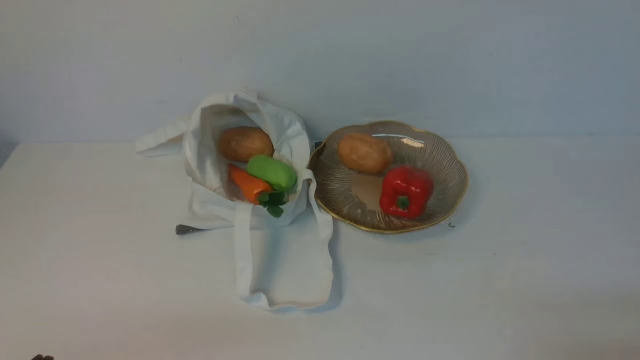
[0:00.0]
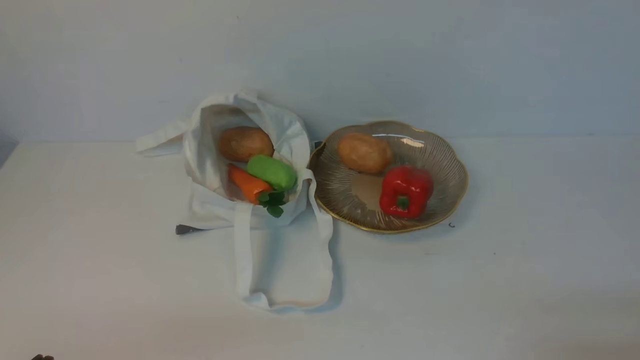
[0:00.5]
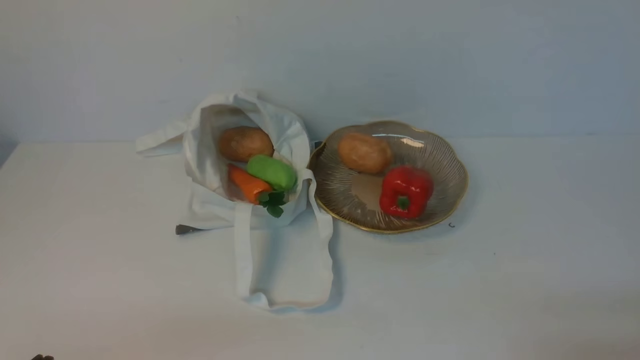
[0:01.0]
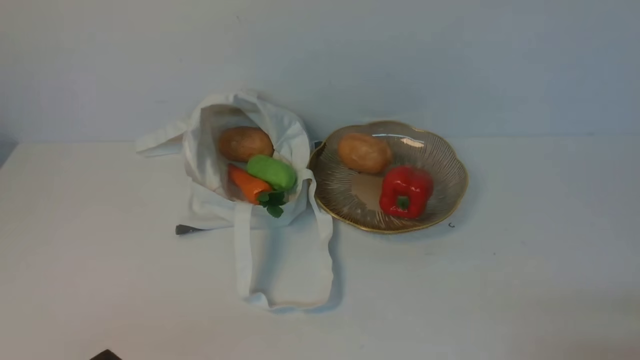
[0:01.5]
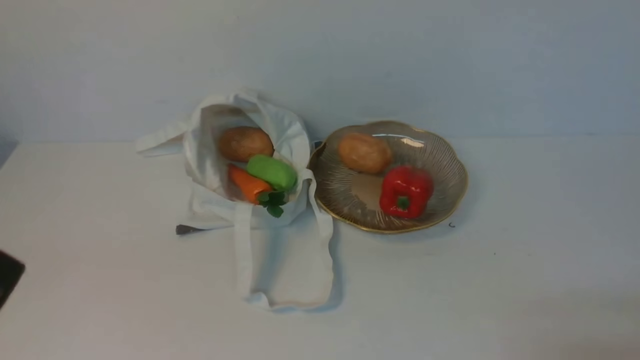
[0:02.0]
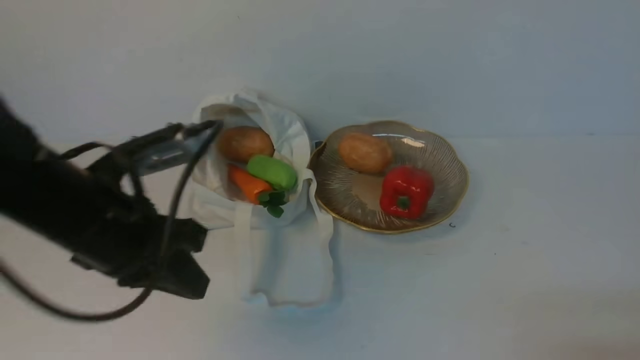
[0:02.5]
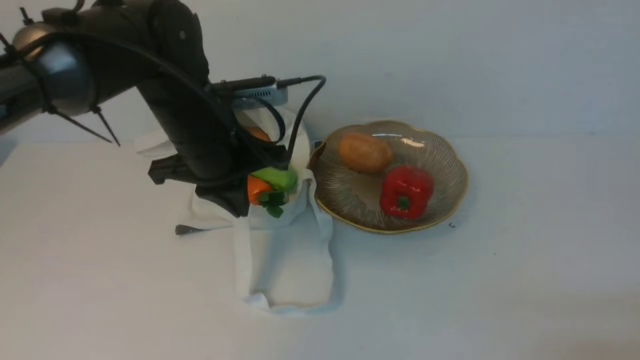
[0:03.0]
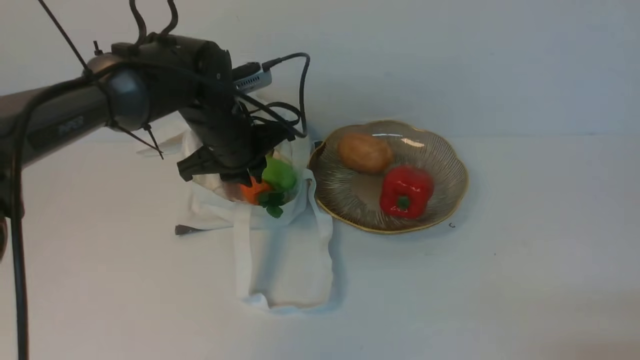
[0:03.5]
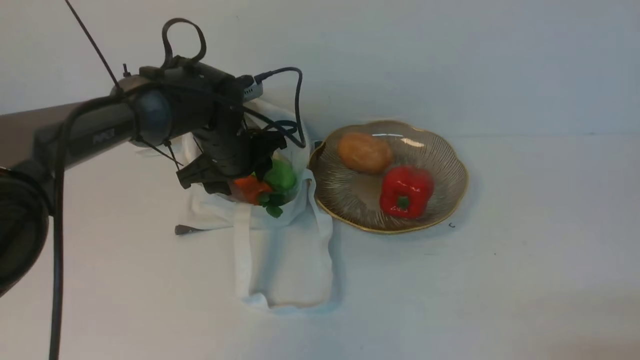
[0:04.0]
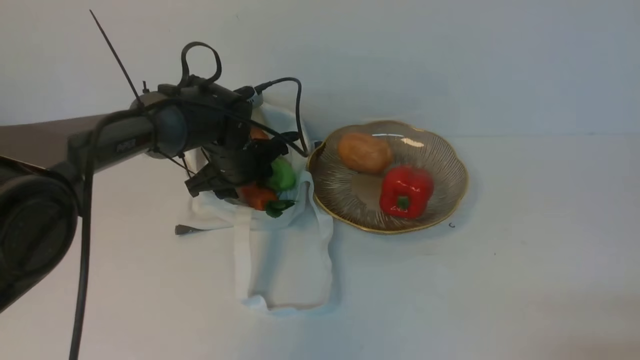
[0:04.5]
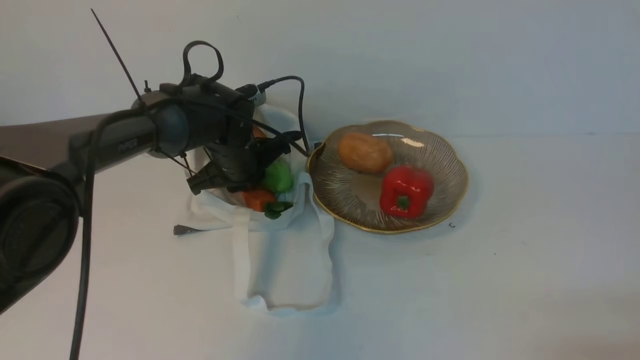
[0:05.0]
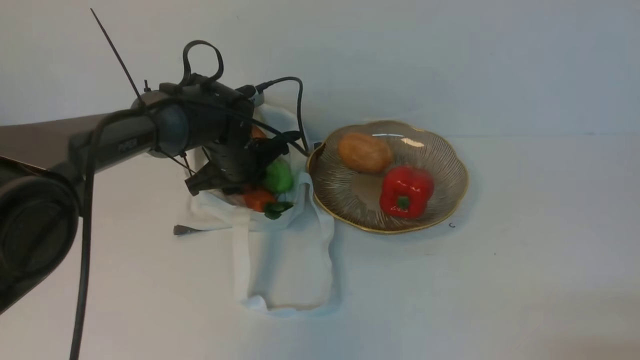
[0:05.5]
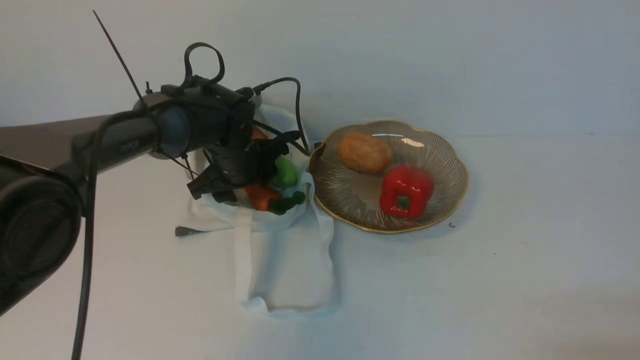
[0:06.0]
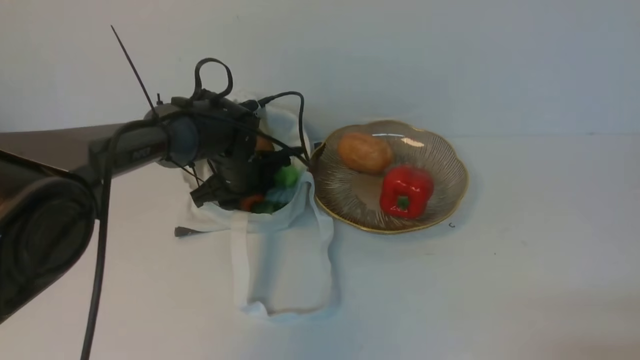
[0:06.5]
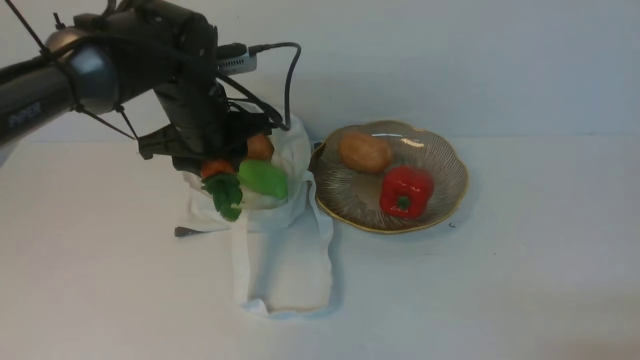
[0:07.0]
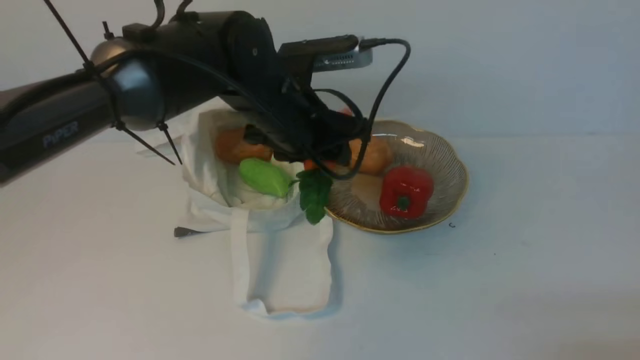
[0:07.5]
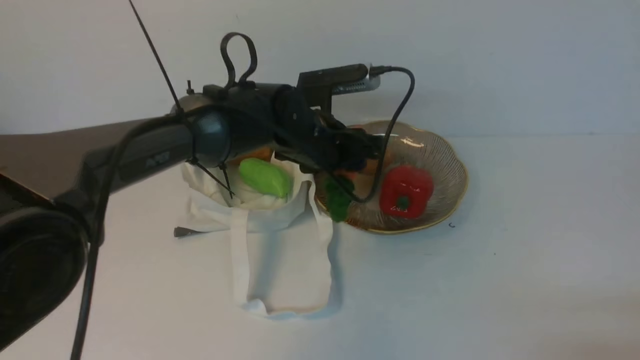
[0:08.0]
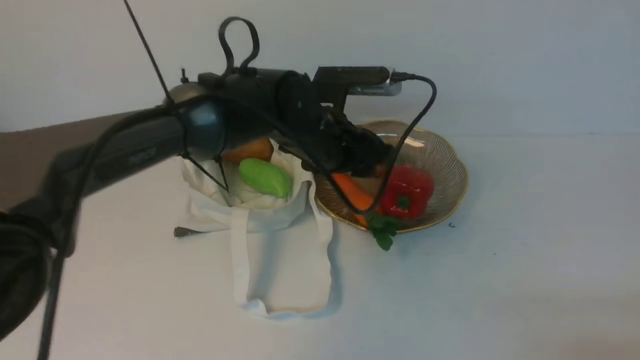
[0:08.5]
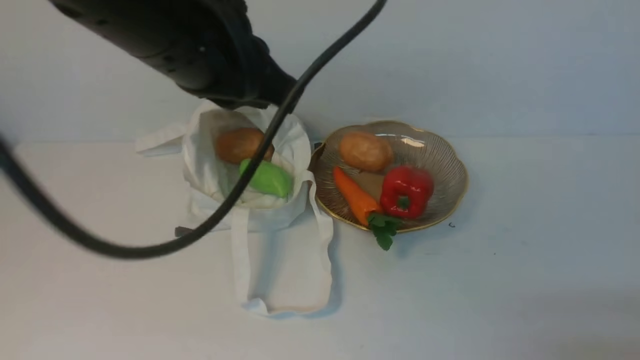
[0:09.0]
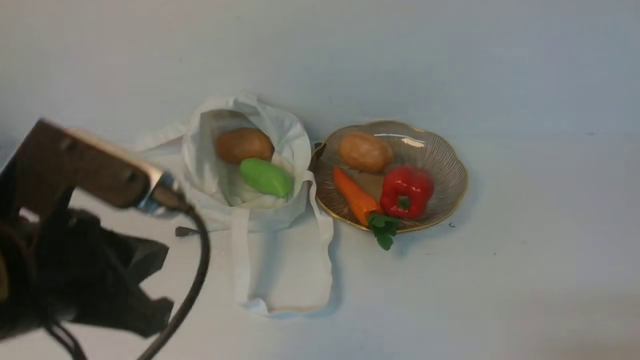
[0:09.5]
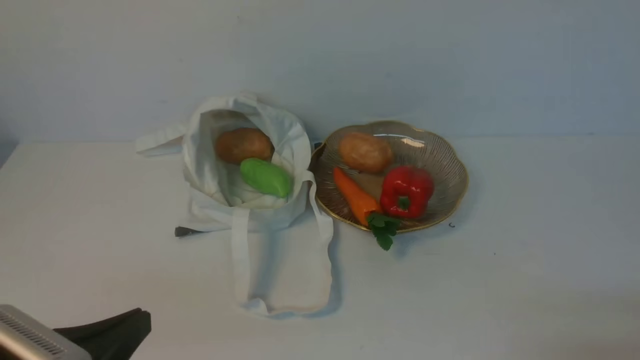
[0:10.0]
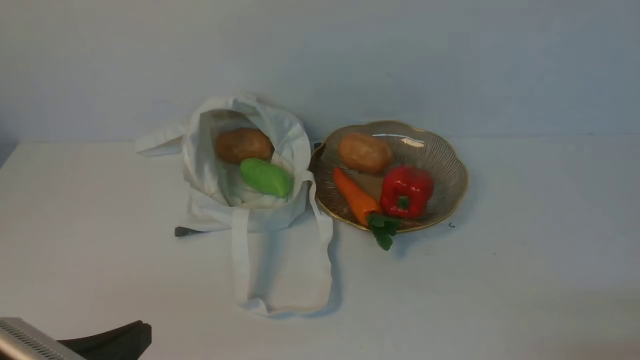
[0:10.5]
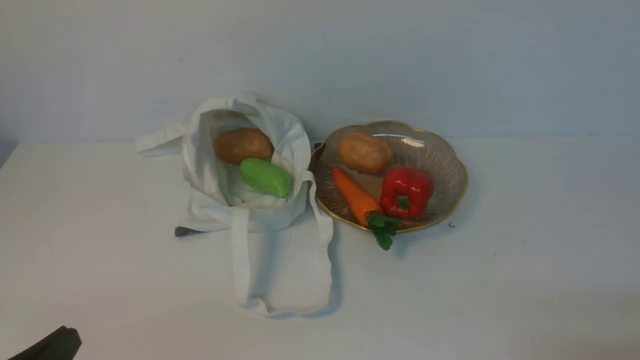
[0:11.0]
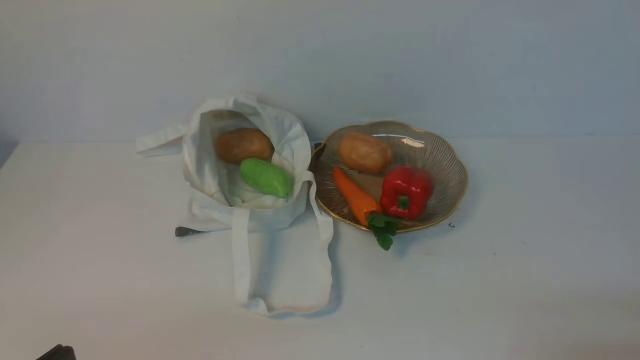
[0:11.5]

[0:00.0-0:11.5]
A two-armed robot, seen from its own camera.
Task of the whole recording: take vegetables from cloth bag on white table place on plate.
Step, 0:00.0 to 0:06.0: Grasp the carrot with left gripper.
Step, 0:07.0 to 0:08.5: Place the carrot on the plate with left gripper.
0:02.0 to 0:04.0: The left gripper shifts about 40 cm forward, and opens up.
0:04.0 to 0:06.0: The left gripper closes, then opens again.
0:06.0 to 0:07.5: The left gripper goes roughly 15 cm upward, backward and to the right.
0:07.5 to 0:09.5: The left gripper shifts about 25 cm backward and to the left, and closes up.
0:09.5 to 0:11.5: The left gripper heads downward, backward and to the left, covering approximately 20 cm.

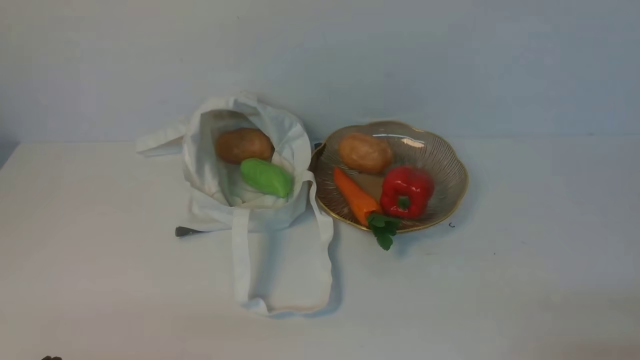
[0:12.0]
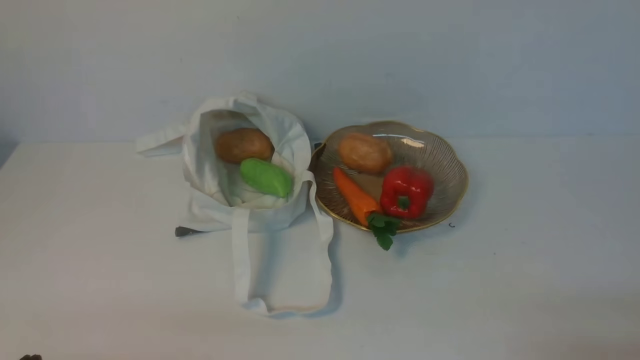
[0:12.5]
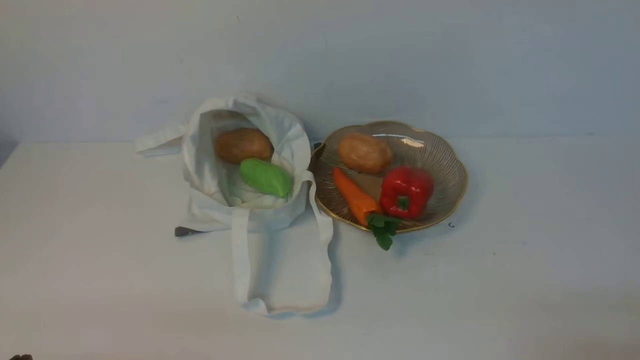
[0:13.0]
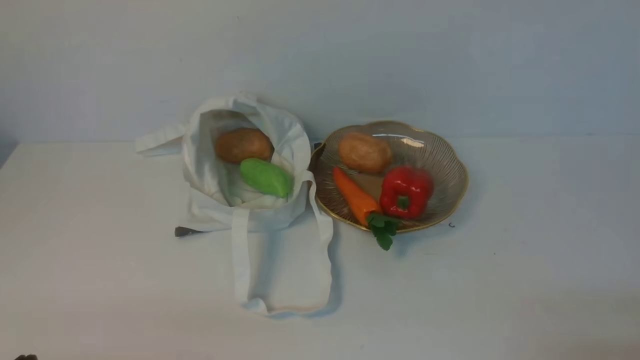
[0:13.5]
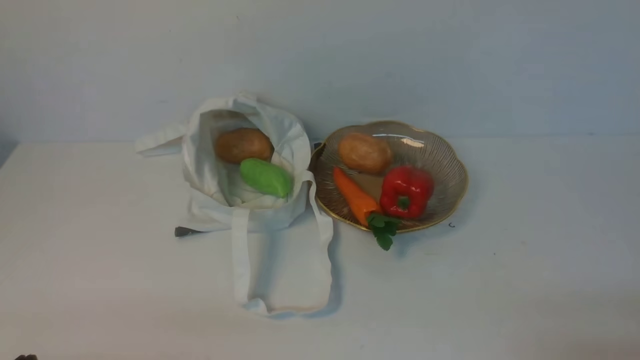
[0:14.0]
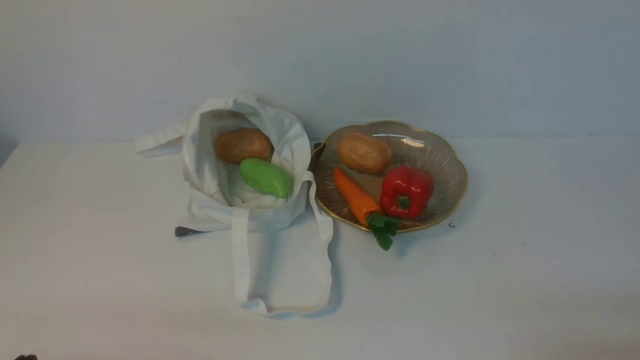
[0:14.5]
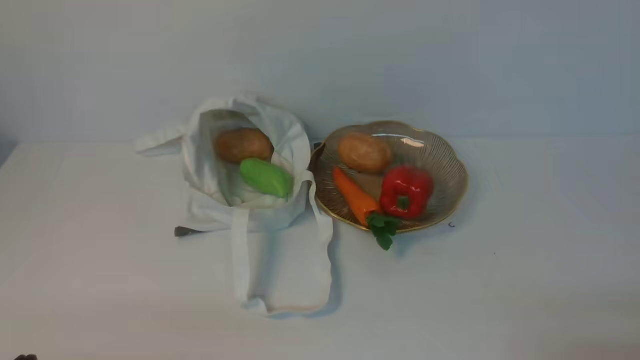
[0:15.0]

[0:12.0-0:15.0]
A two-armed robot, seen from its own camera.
Task of the whole recording: take vegetables from cloth bag on white table place on plate.
0:13.5 to 0:15.0: The two grippers keep their place.

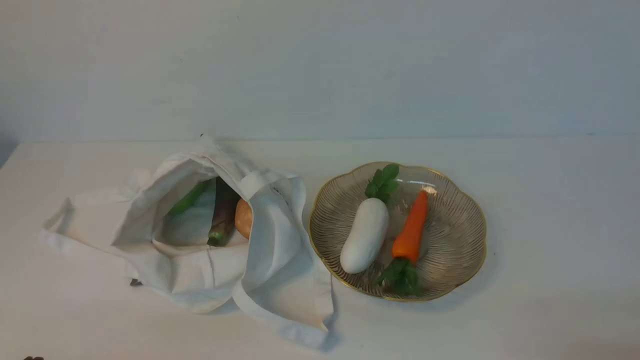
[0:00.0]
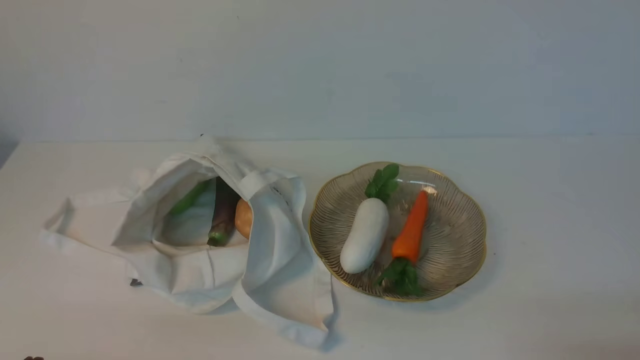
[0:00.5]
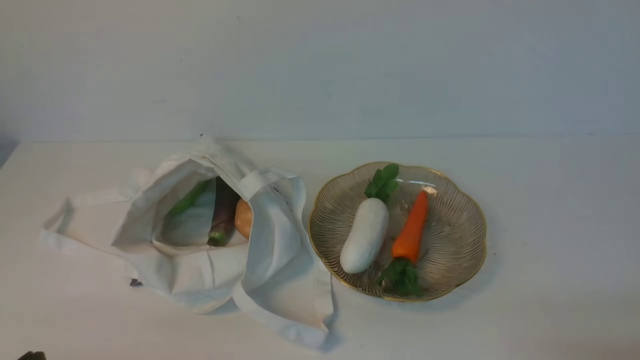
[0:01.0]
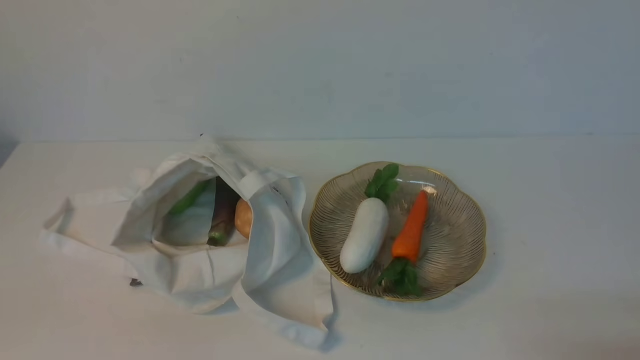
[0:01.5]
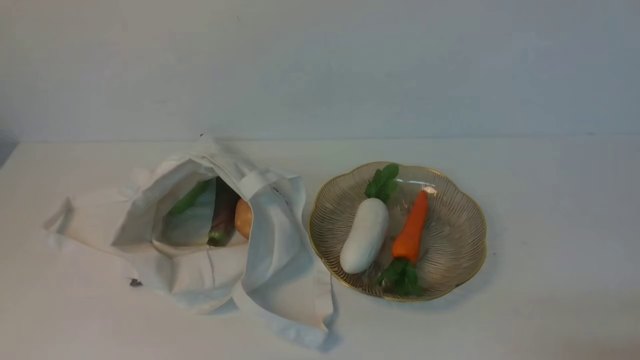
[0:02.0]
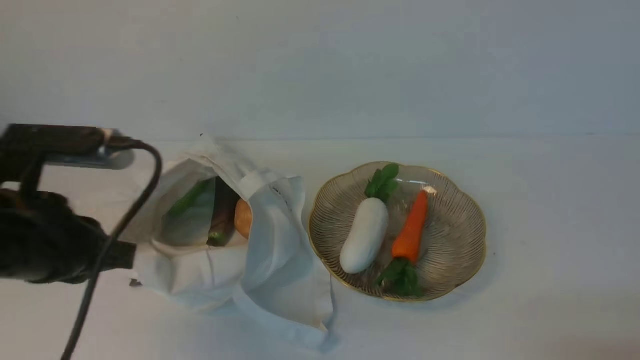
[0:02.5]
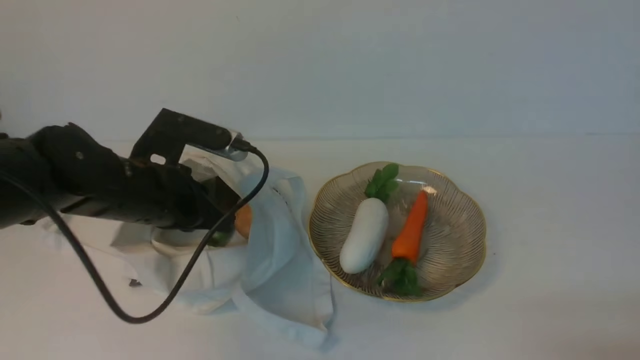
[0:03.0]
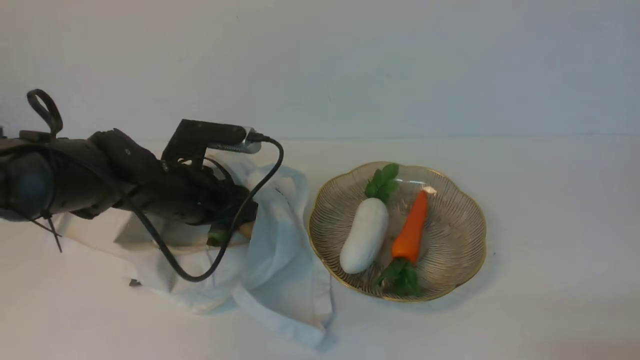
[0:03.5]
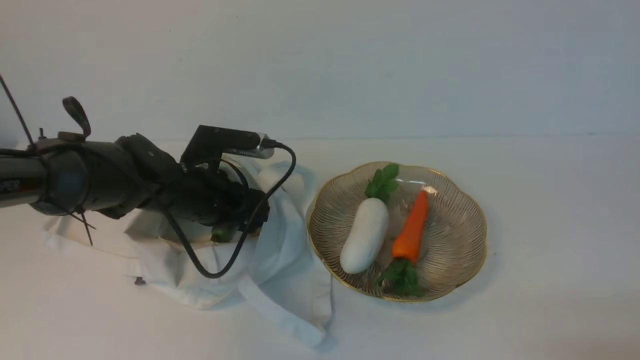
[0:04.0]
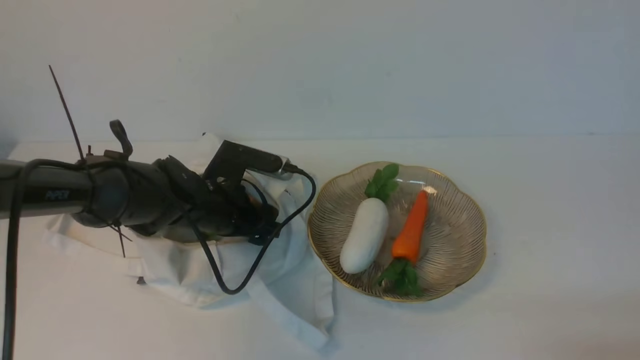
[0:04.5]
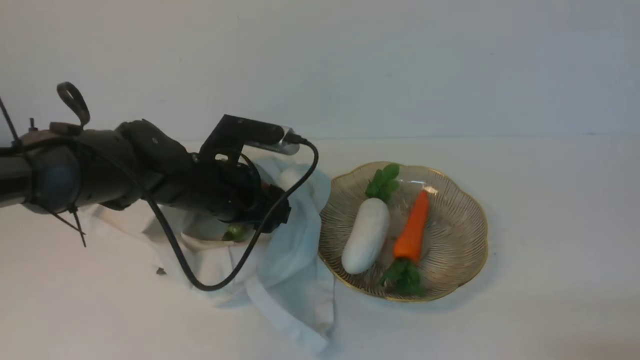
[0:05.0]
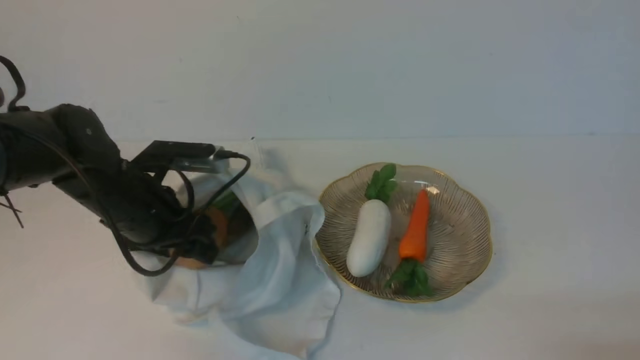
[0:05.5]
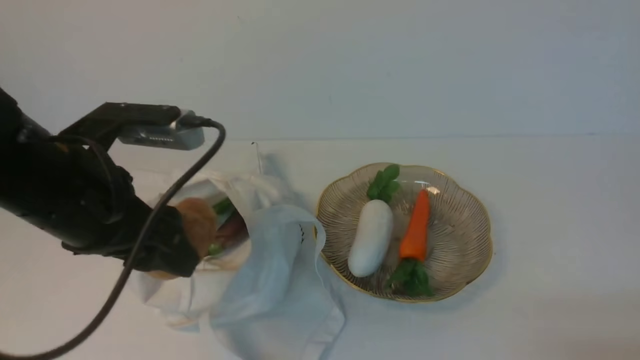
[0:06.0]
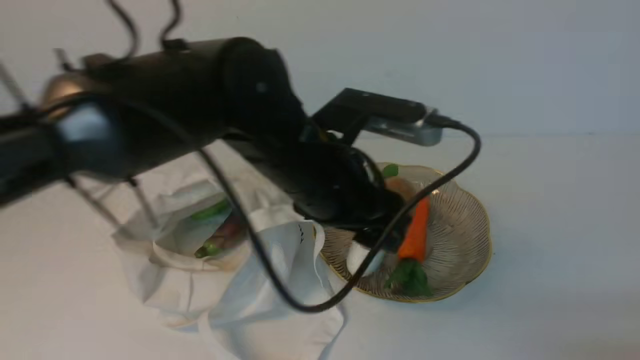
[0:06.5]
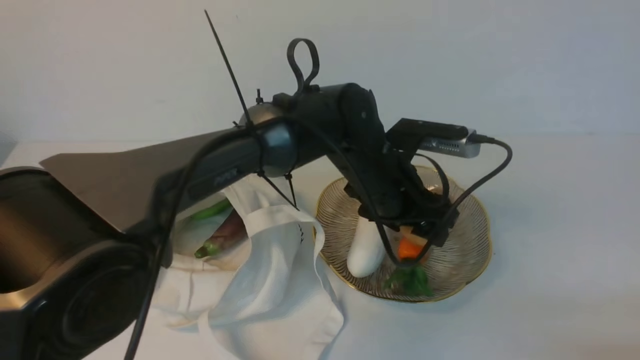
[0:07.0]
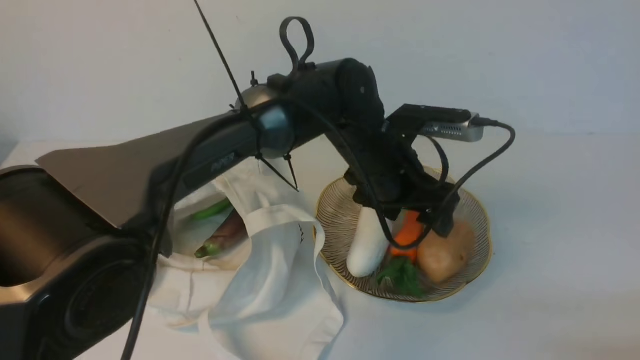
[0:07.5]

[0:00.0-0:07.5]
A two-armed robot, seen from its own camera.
Task of the whole recording: take vegetables from cloth bag on white table place on plate.
Step, 0:00.0 to 0:04.5: Grasp the potato with left gripper.
Step, 0:05.0 to 0:07.0: Place the potato on the plate with left gripper.
0:02.0 to 0:04.0: The left gripper travels forward and downward by roughly 35 cm, and opens.
0:04.0 to 0:05.5: The left gripper changes place by some 5 cm.
0:05.5 to 0:07.5: The left gripper is displaced to the right by about 25 cm.
